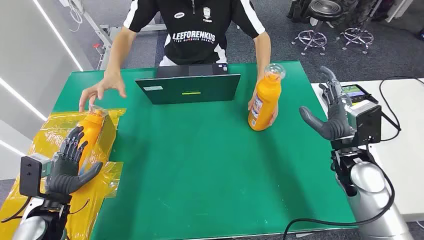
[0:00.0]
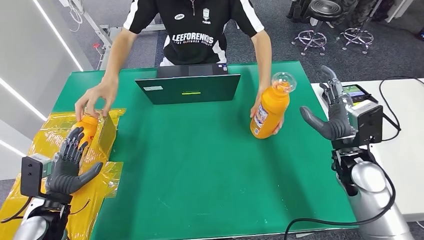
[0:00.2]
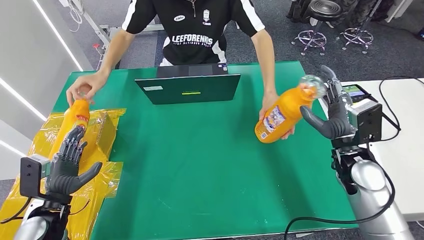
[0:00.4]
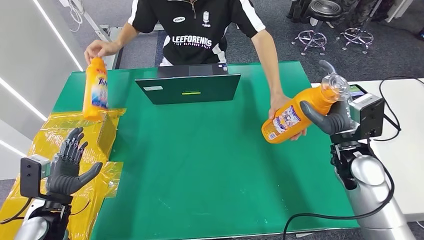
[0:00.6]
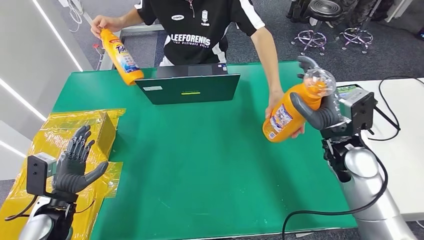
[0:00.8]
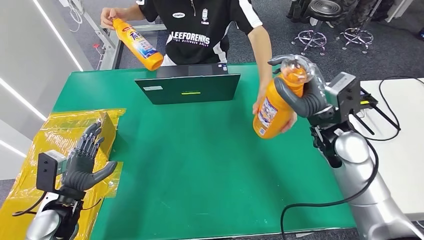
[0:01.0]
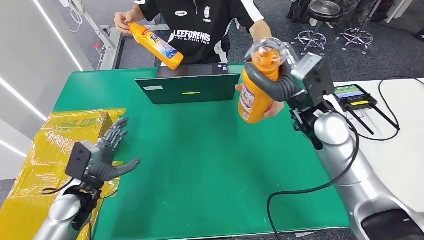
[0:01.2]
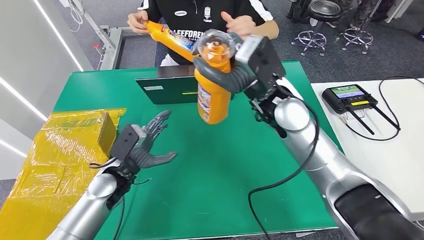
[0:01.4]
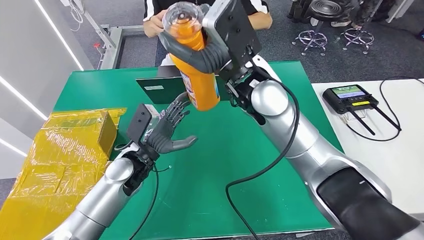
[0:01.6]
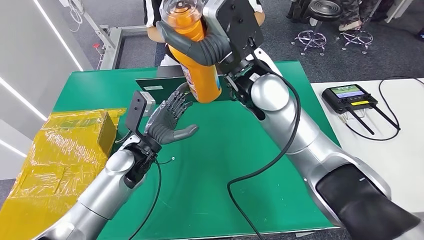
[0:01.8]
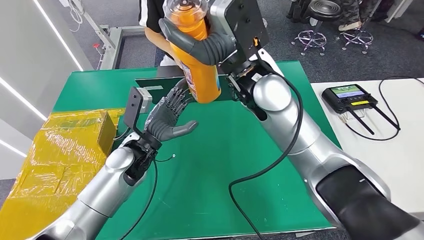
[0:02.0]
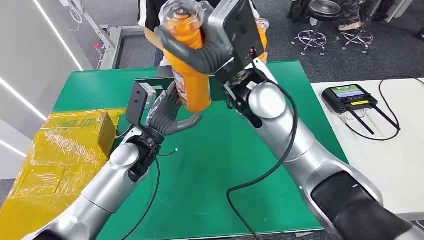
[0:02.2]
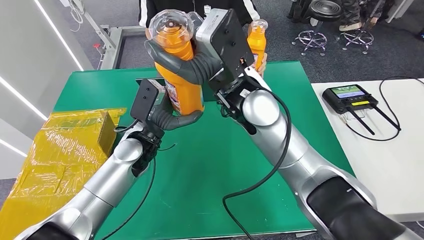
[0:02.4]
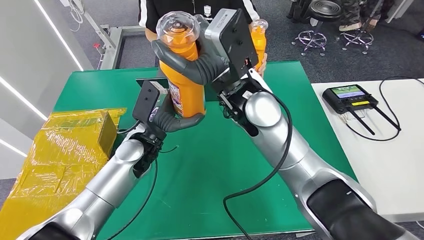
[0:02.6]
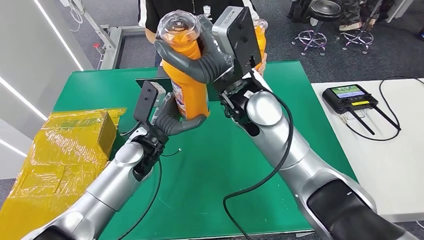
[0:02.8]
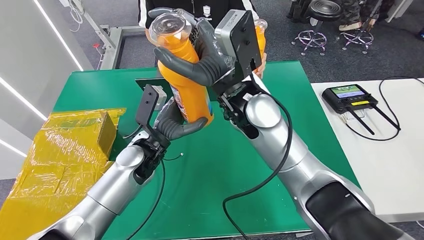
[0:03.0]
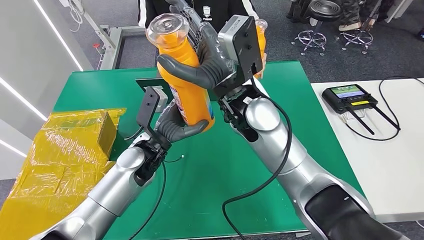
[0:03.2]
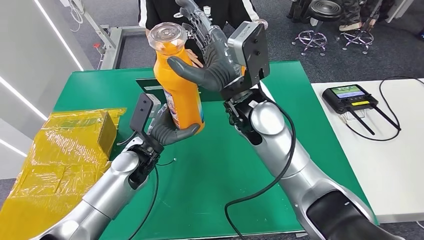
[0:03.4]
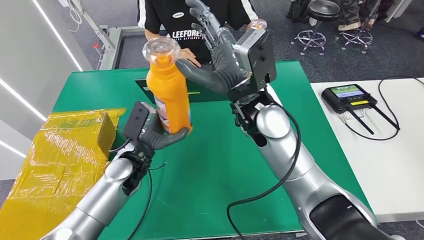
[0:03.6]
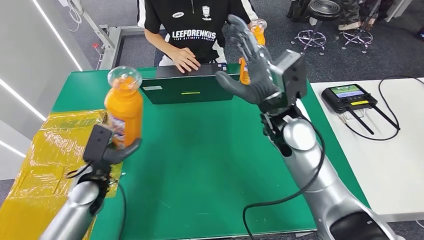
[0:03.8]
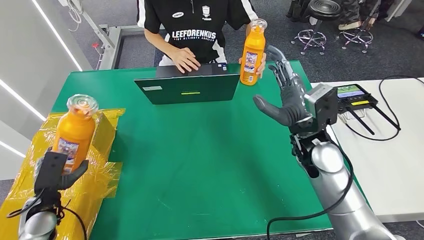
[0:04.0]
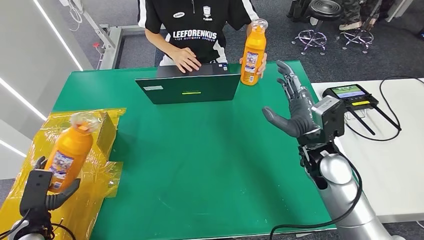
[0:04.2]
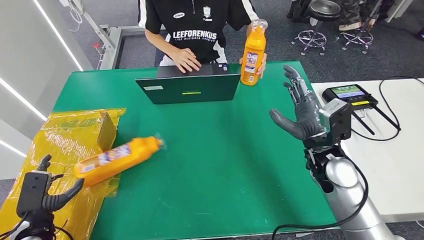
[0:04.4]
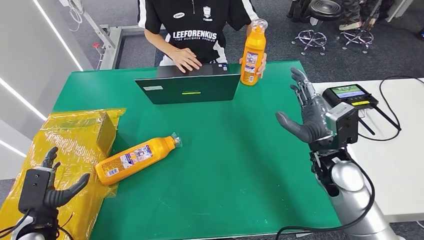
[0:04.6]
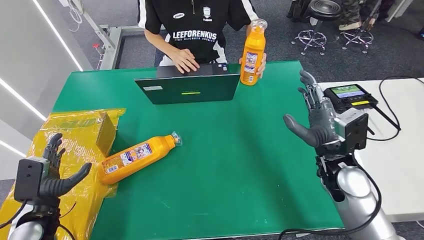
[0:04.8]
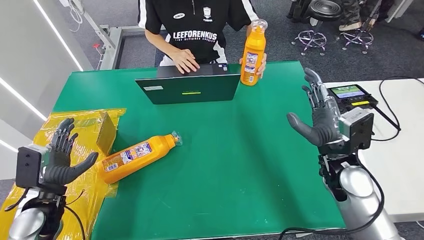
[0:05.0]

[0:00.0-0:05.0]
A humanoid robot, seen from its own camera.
Step, 0:00.0 to 0:03.2: Pick up the bottle from the table.
Step, 0:03.4 to 0:05.0: Turn the bottle to the front side.
